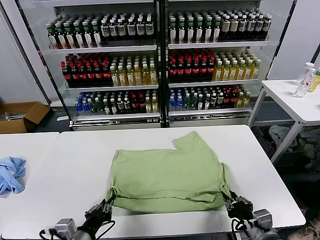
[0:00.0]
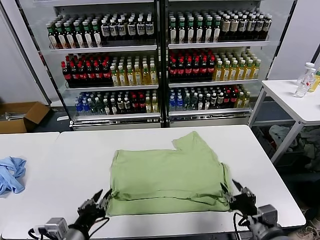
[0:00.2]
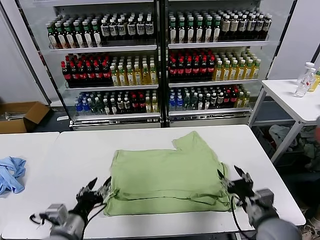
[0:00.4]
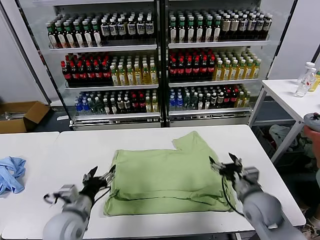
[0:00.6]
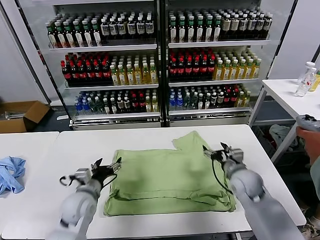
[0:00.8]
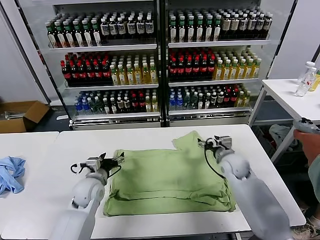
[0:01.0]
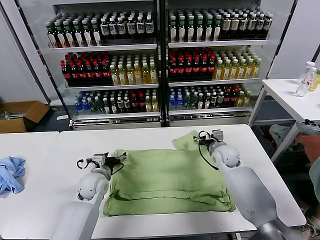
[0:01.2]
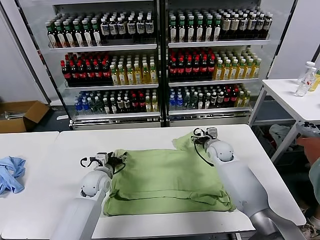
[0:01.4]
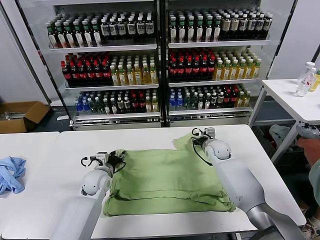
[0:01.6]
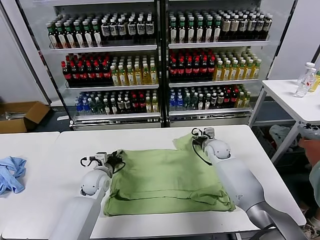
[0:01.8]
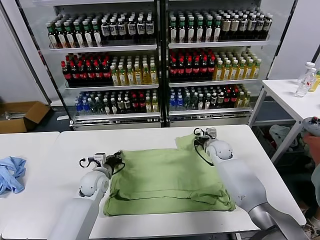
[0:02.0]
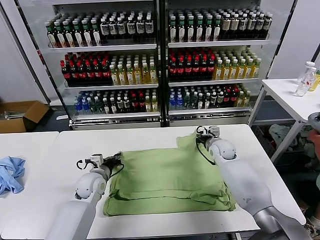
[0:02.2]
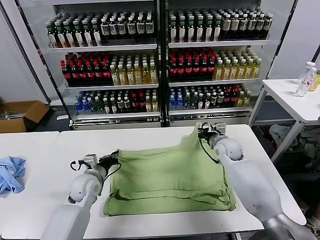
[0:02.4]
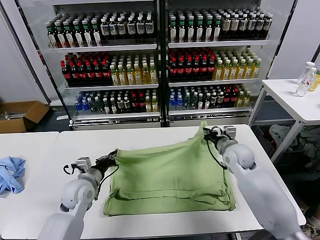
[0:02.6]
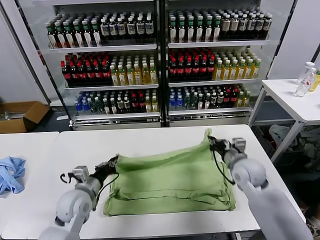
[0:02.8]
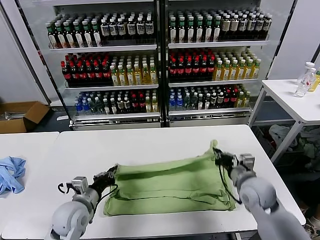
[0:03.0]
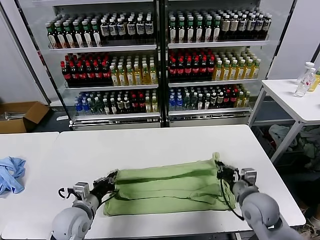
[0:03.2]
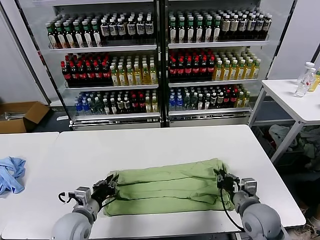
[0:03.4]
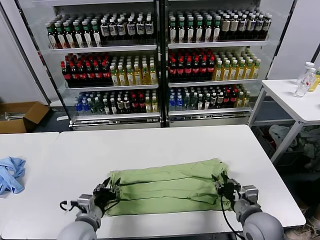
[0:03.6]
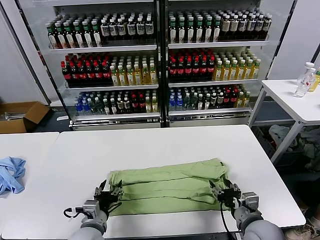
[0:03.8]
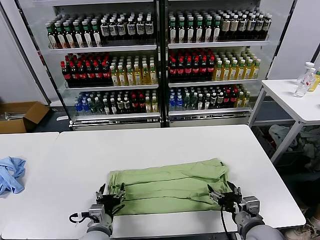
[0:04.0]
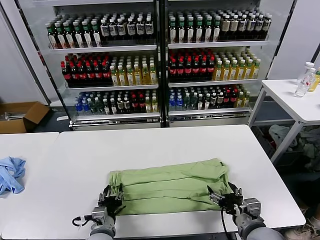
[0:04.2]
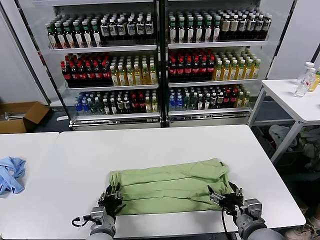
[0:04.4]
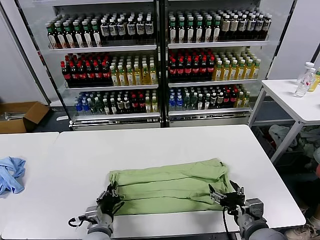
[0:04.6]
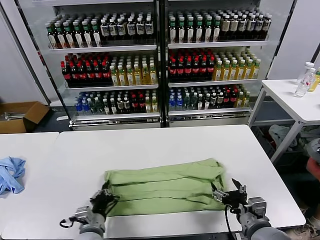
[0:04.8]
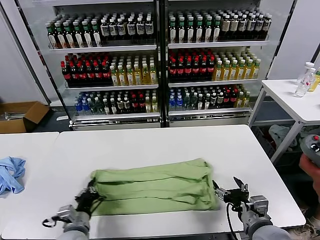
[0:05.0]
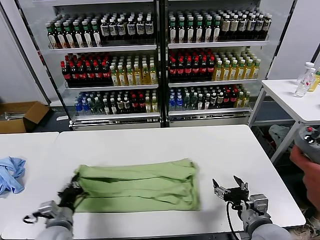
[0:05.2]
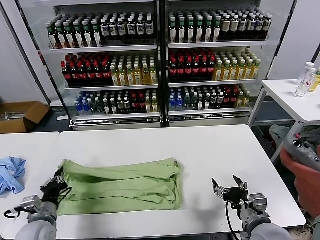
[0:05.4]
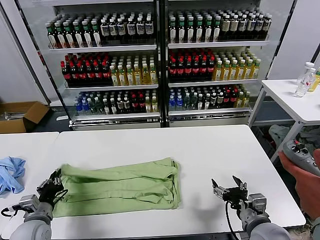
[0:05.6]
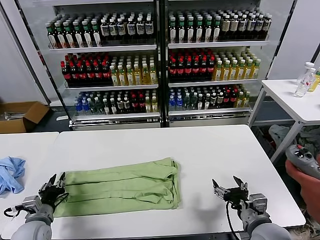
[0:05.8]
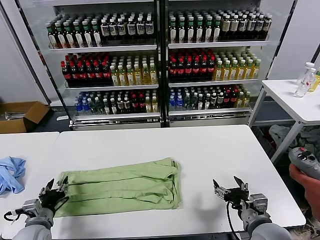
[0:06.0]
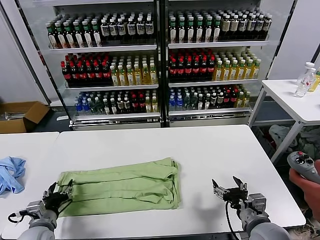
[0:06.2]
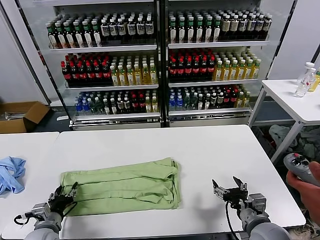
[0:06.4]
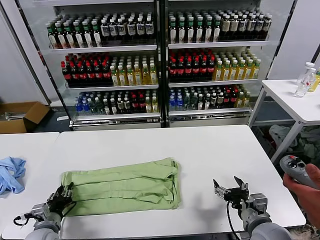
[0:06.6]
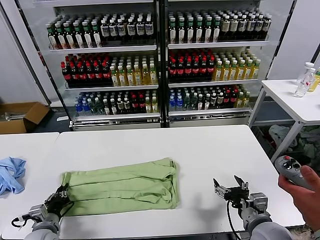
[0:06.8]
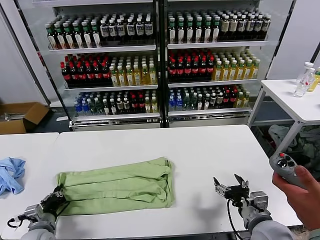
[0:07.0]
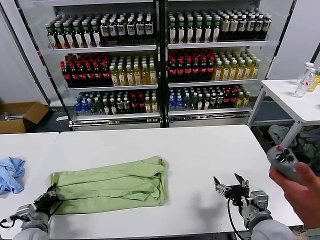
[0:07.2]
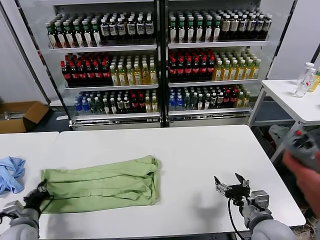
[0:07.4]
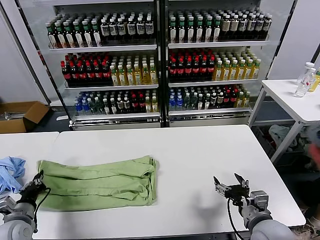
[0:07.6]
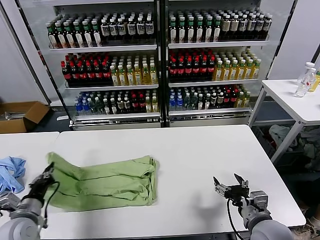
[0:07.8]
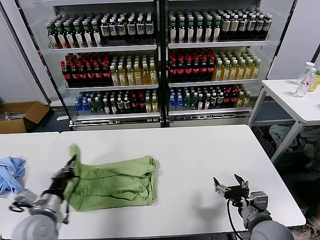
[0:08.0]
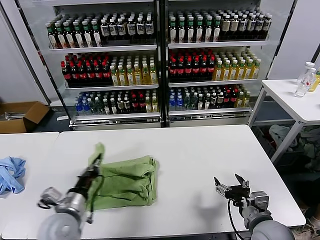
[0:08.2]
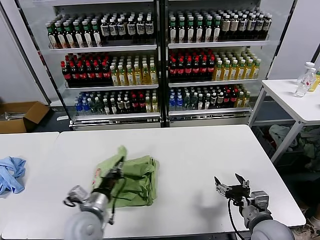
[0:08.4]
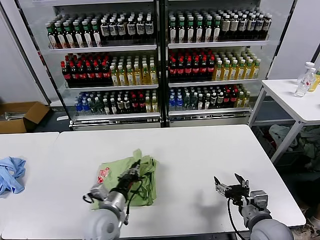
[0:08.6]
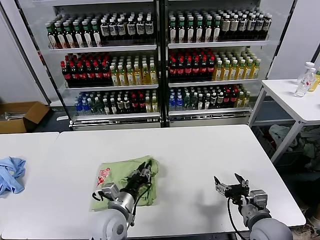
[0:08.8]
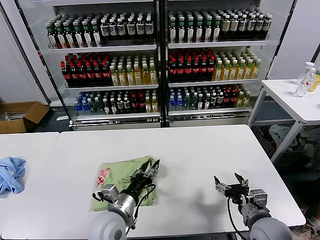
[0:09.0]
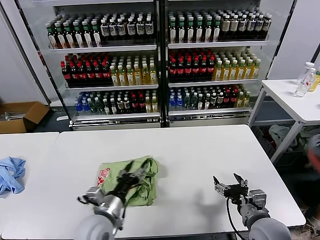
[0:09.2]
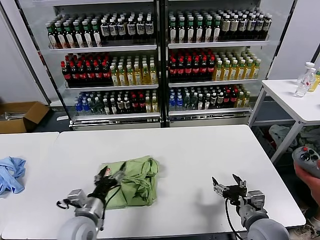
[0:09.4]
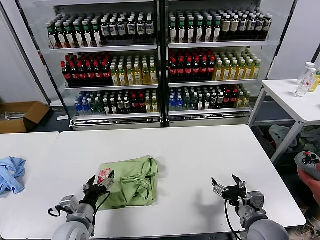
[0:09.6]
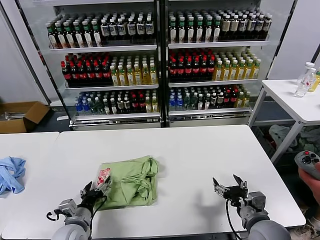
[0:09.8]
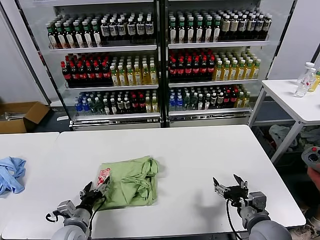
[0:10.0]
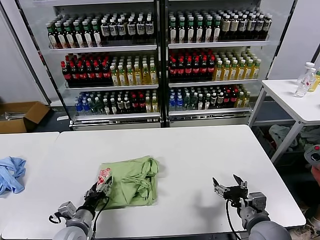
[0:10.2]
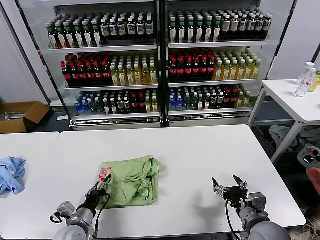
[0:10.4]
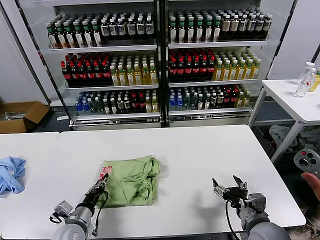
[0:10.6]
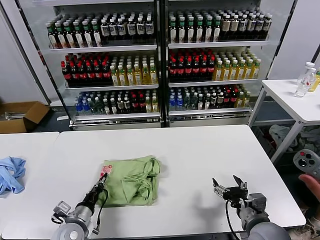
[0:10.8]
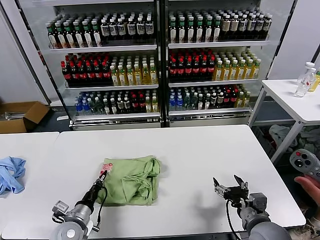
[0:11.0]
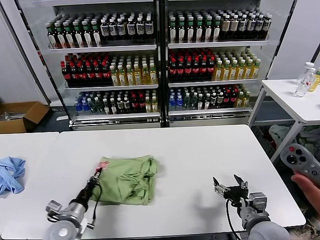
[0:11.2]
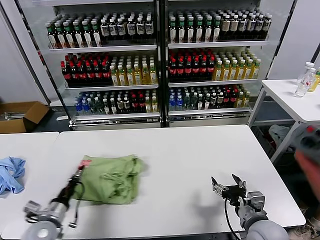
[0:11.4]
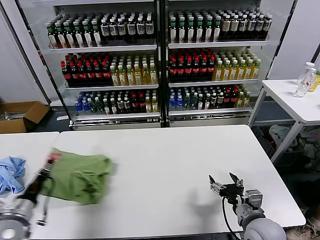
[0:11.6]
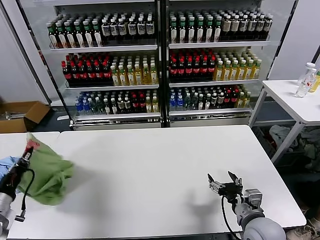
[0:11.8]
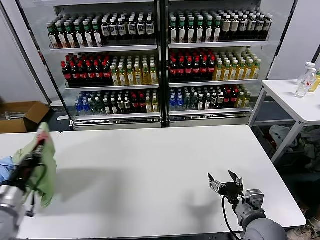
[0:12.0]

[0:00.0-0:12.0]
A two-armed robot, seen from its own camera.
Task of the whole recording: fold and organize the clothes.
Step, 0:00.2 to 0:02.0: use both grippers simultaneously to clamp the upper edge of the clothing fabric.
Step, 0:02.2 to 0:03.6: use both grippers to drag the upper edge of the fabric backward and fold it over the lower edge.
Step, 0:03.8 to 0:04.6: use the left gripper to clamp the left edge of the fabric.
Step, 0:04.8 to 0:08.8: use the left gripper to drag the left edge of the fabric to the left and folds it over the right edge.
0:00.0 to 0:01.6: Both grippers move forward, approximately 35 cm. The left gripper opens. The right gripper opens, then closes once more.
0:01.6 to 0:03.0: The left gripper travels backward by some 15 cm, and closes its fingers, while the right gripper heads backward, covering roughly 20 cm, and closes.
0:03.0 to 0:04.4: The right gripper moves backward, some 15 cm, and opens its fingers; the left gripper shifts some 15 cm to the right, backward and downward, and opens up.
0:04.4 to 0:06.0: The left gripper moves to the left, roughly 20 cm, and closes, then reopens.
0:06.0 to 0:07.6: The left gripper heads to the left, covering about 5 cm, and closes.
0:07.6 to 0:09.0: The left gripper heads to the right, covering some 30 cm, and opens its fingers.
0:09.0 to 0:10.4: The left gripper travels to the left and downward by roughly 15 cm, and opens, then closes again.
0:10.4 to 0:12.0: The left gripper travels upward and to the left by some 20 cm, and closes.

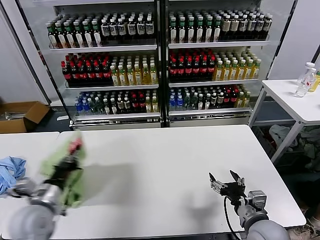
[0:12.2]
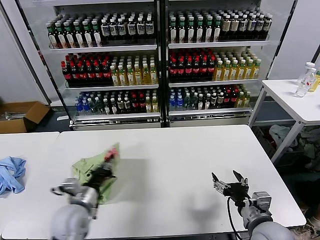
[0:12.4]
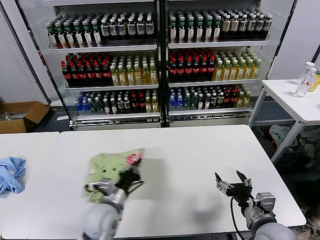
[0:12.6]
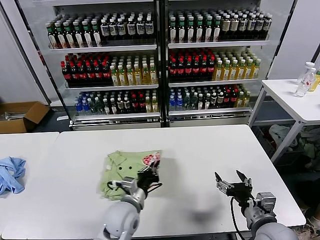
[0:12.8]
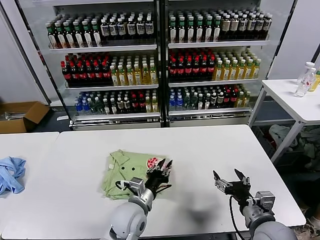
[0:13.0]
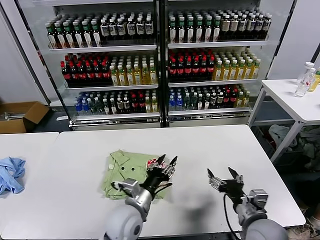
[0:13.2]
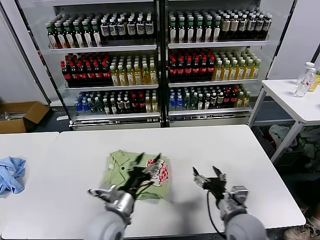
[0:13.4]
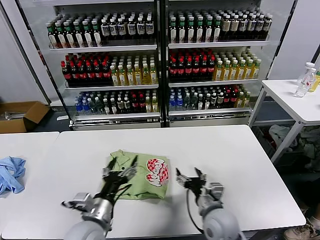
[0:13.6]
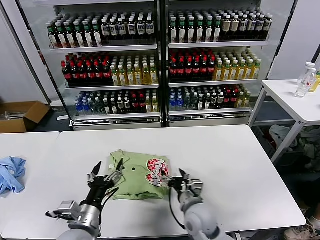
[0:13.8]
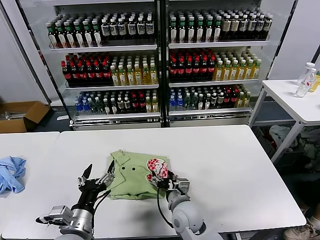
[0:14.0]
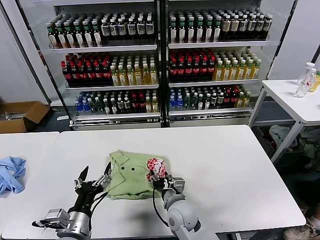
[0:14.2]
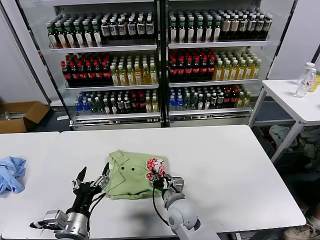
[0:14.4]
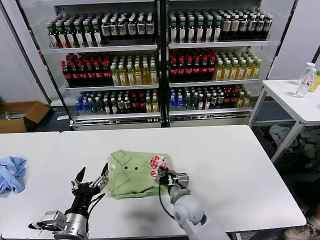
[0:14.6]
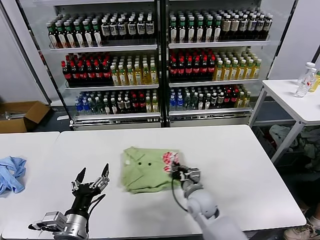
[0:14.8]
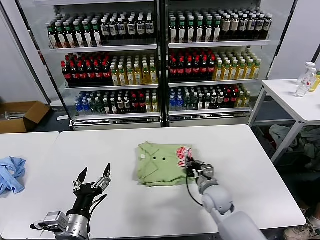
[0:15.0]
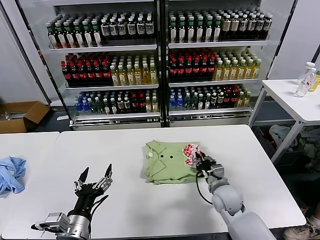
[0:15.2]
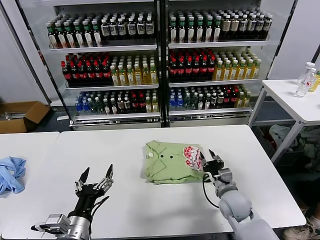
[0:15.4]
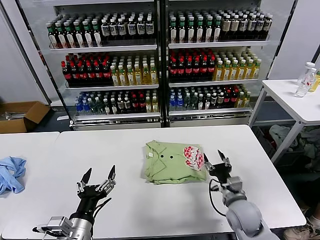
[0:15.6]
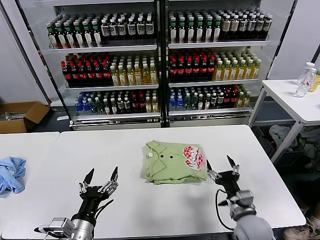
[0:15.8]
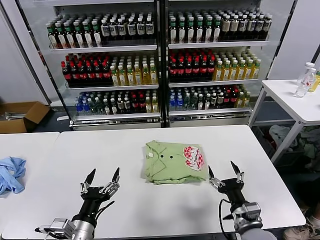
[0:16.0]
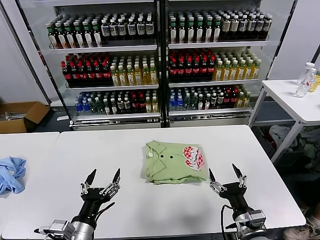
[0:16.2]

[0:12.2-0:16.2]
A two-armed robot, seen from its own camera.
Task of the whole recording: fold and organize the clothes.
Step, 0:13.2 to 0:15.2: Drag the clothes to the center of the table.
0:12.2 to 0:13.6: The left gripper goes roughly 20 cm to the right, and opens its fingers. The right gripper is displaced to the left by roughly 10 cm.
0:13.6 to 0:14.8: The left gripper is displaced to the left and backward by approximately 10 cm, while the right gripper travels forward and to the left by about 10 cm, and closes.
0:14.8 to 0:16.2: The right gripper is displaced to the right and backward by approximately 20 cm, and opens its fingers.
